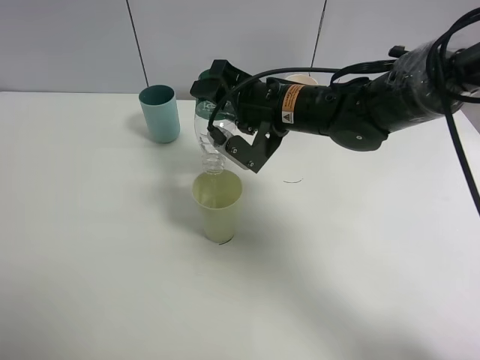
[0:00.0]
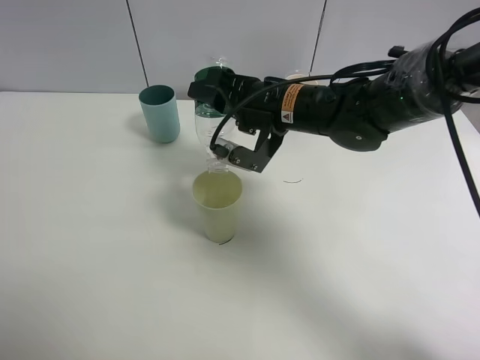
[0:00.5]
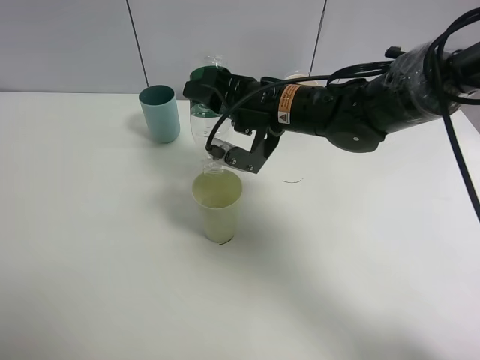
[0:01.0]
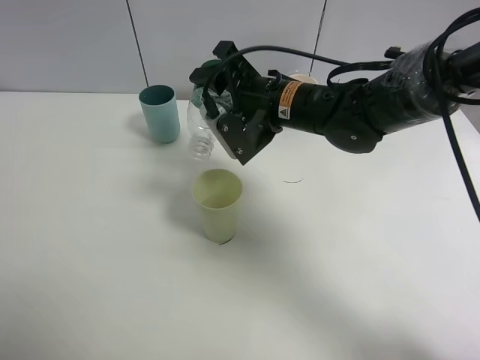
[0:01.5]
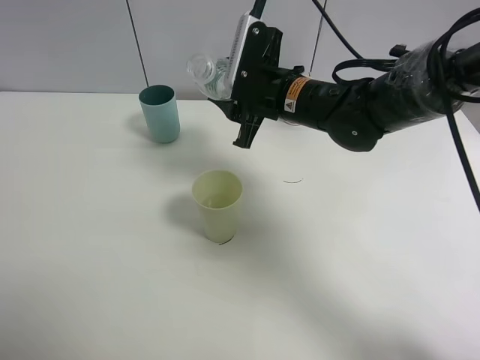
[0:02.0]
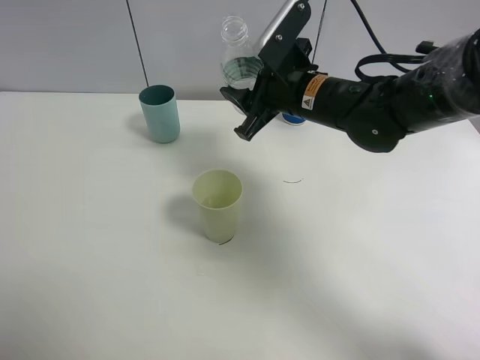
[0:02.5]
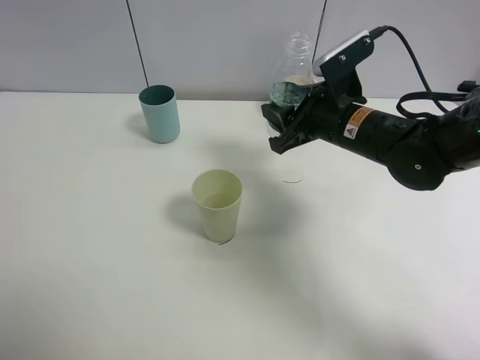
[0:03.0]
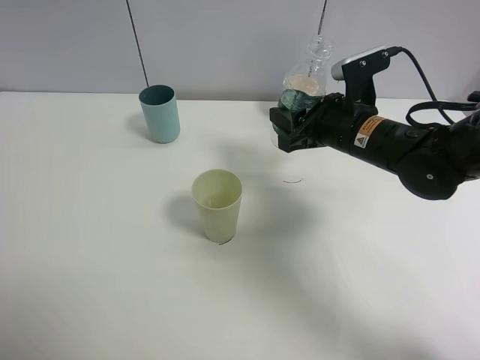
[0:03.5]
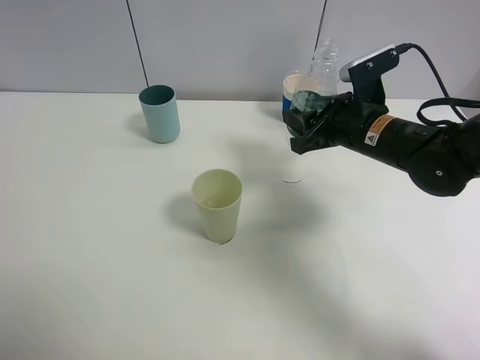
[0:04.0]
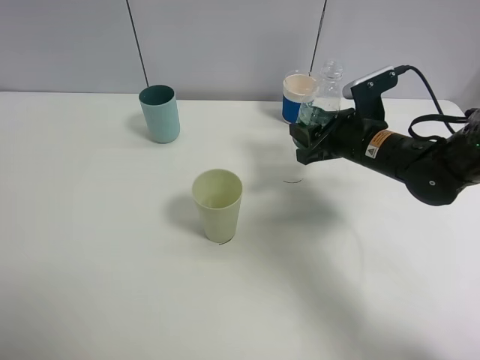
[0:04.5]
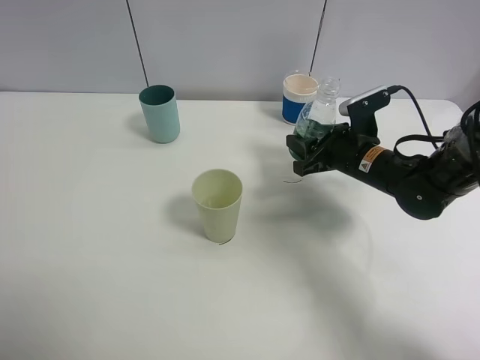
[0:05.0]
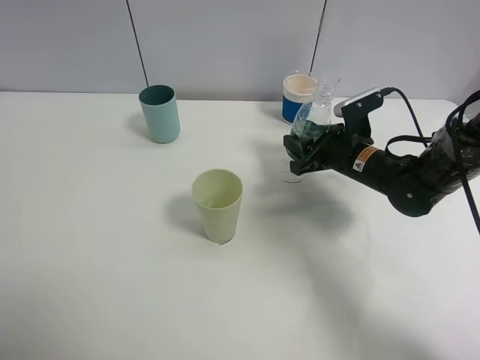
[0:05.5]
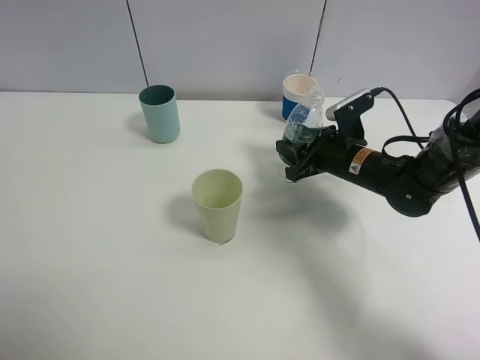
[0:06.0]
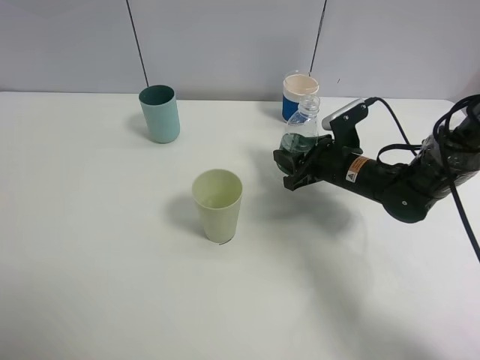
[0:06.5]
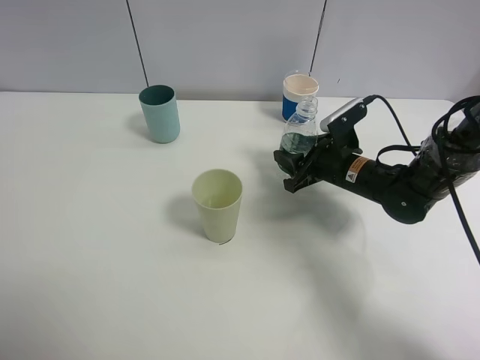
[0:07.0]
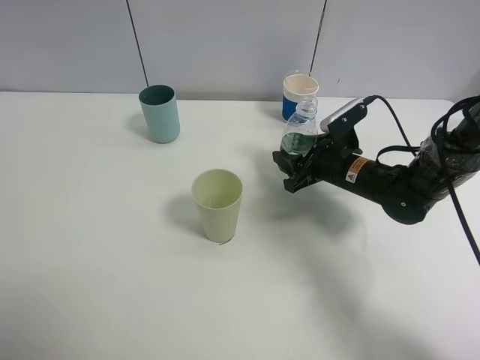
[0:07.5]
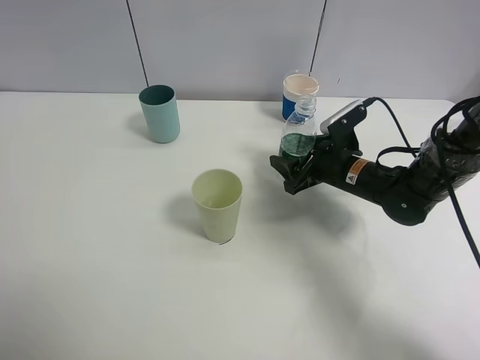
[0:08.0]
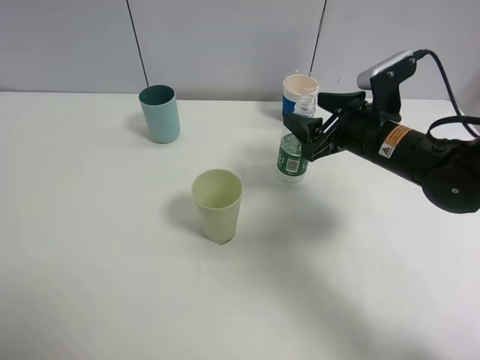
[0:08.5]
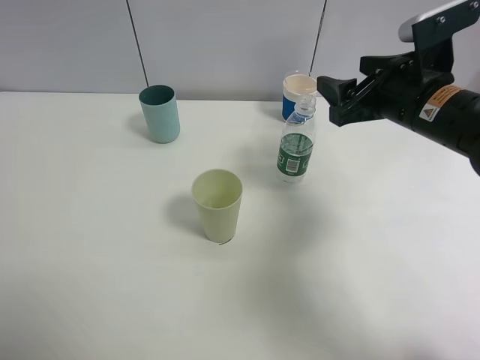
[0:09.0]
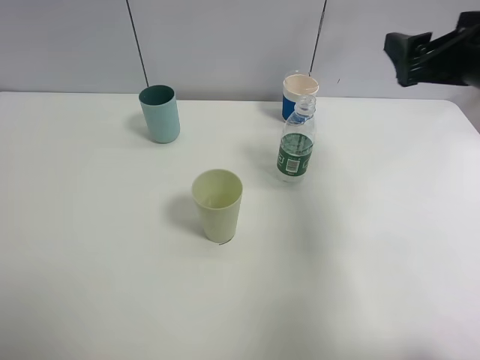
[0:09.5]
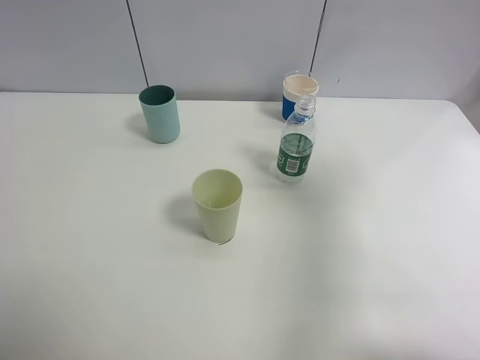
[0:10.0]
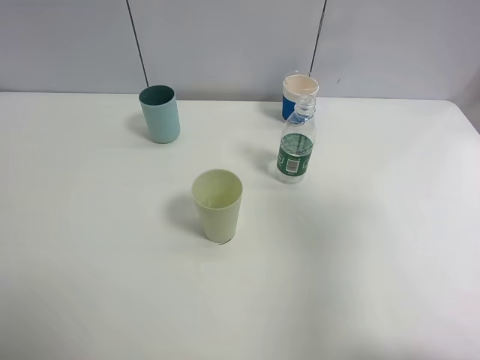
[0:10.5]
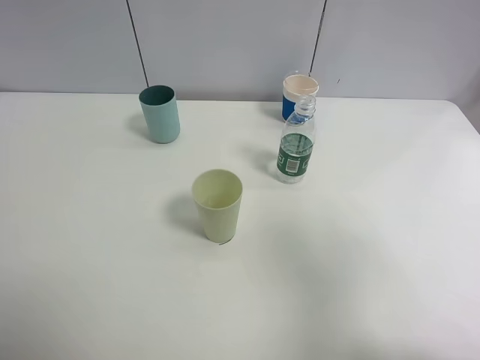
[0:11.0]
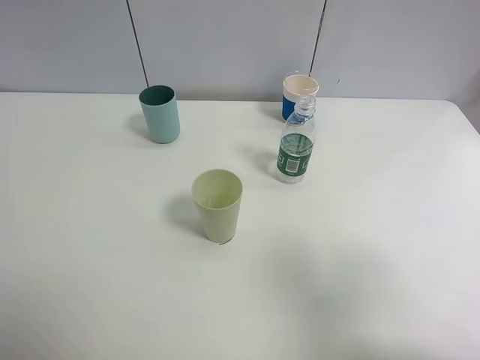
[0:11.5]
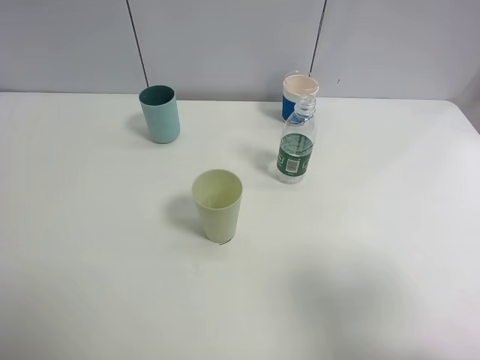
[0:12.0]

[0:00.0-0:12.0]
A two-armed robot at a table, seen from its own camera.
Task of the whole recording: use a clamp to hold the bottle of the drink, pour the beverage into a random cup, then clamp the cup containing the drink and pour the drink into another random cup.
Step, 0:01.5 to 0:08.0: Place the water bottle on the table with right gripper.
0:02.0 to 0:04.0: The right gripper is displaced to the right by some 10 cm.
0:04.0 to 0:06.0: The right gripper travels downward by about 5 cm.
0:06.0 to 0:08.0: The right gripper opens up.
0:08.0 to 0:10.0: The right gripper goes approximately 35 cm upward, backward and to the right, and opens.
0:10.0 to 0:12.0: The right gripper moves backward, roughly 15 cm.

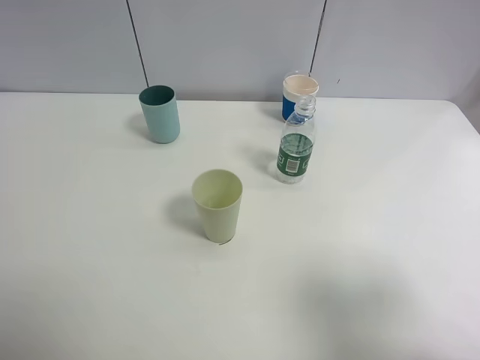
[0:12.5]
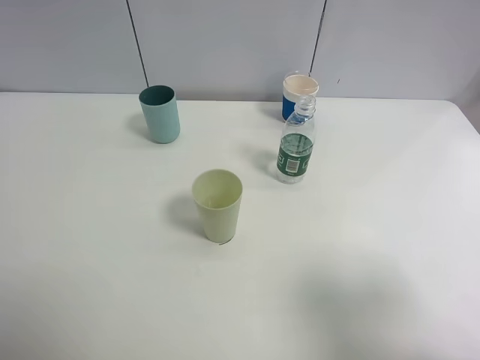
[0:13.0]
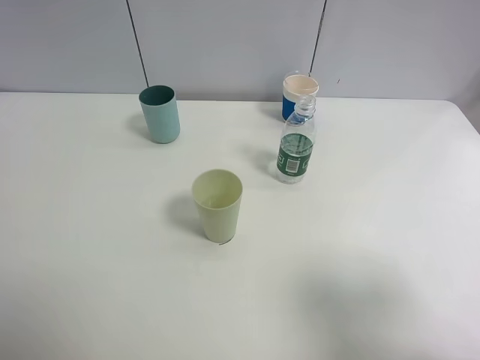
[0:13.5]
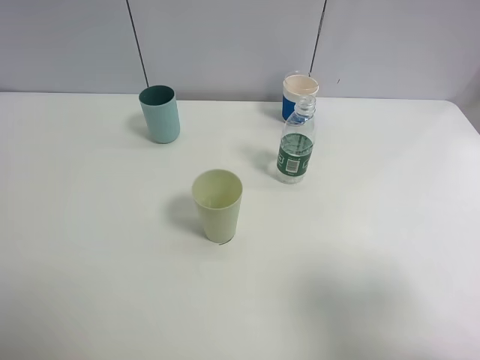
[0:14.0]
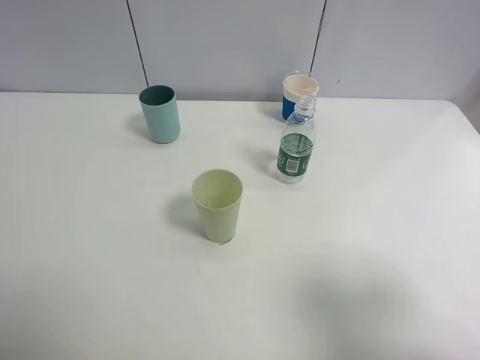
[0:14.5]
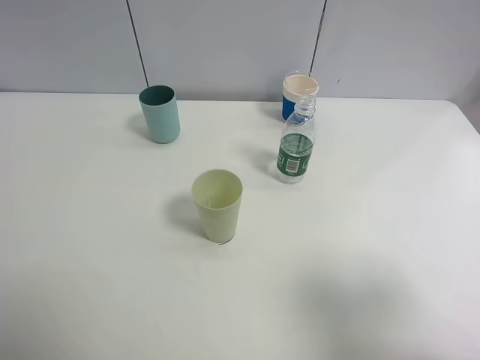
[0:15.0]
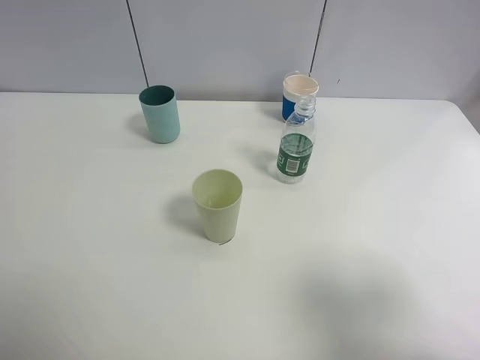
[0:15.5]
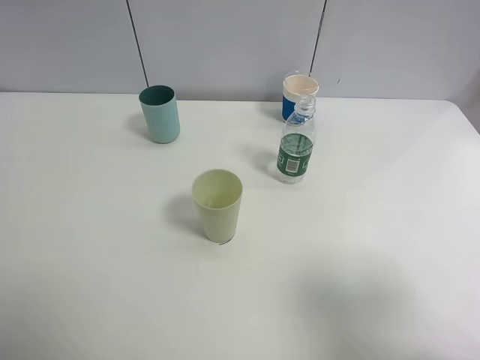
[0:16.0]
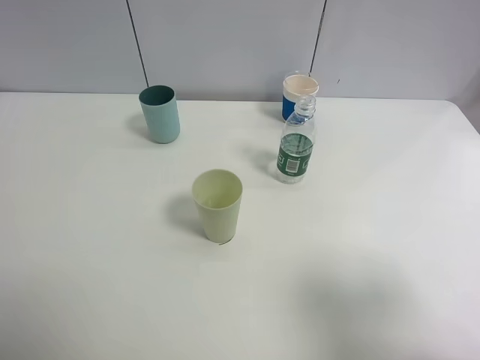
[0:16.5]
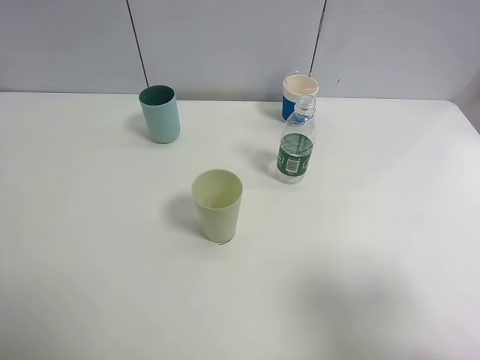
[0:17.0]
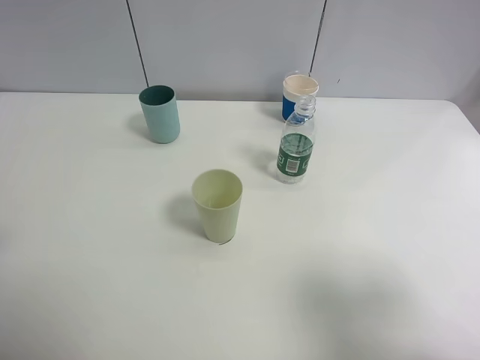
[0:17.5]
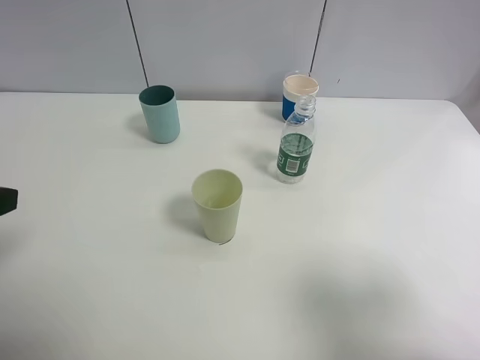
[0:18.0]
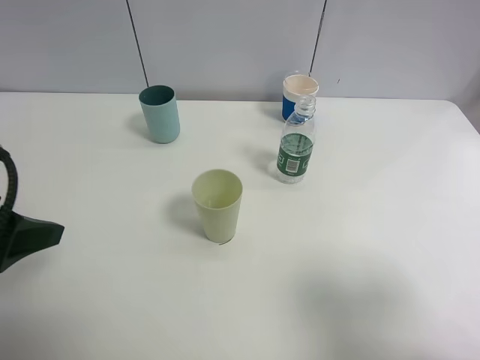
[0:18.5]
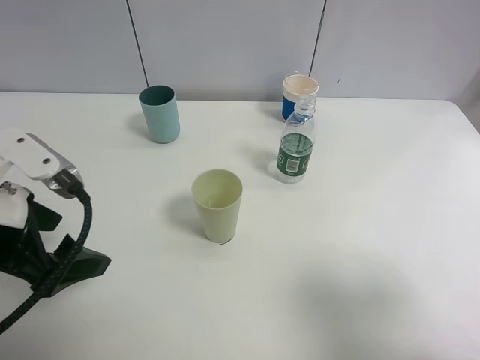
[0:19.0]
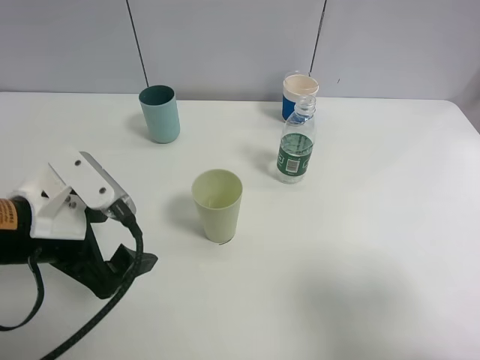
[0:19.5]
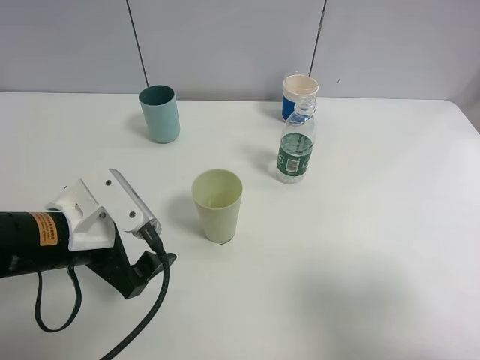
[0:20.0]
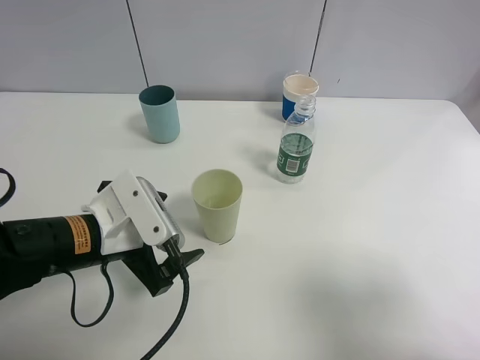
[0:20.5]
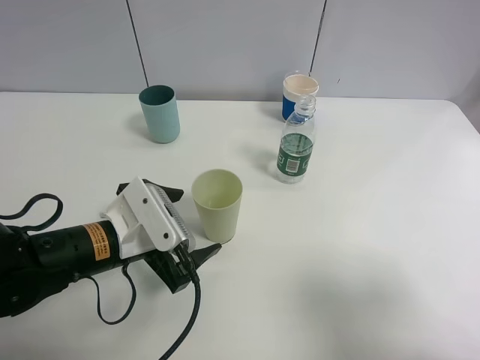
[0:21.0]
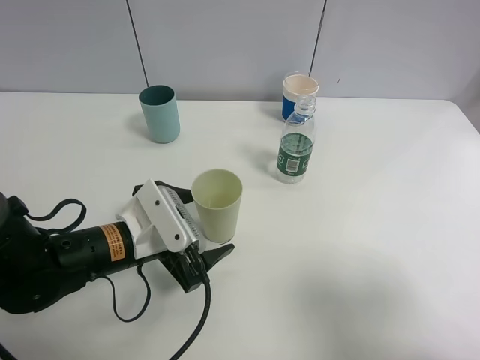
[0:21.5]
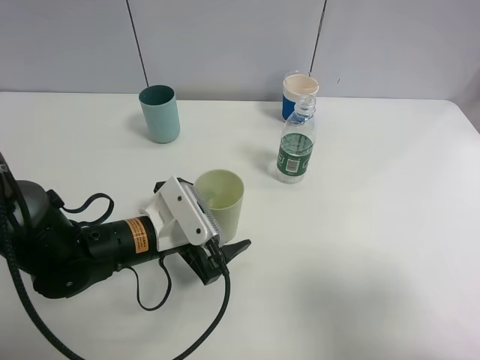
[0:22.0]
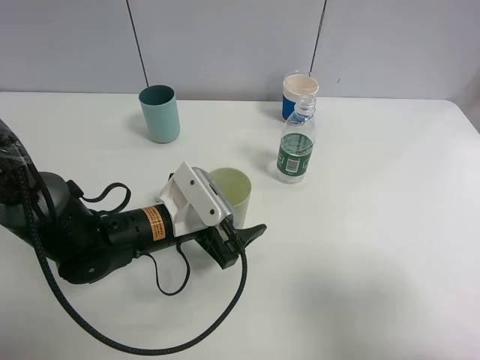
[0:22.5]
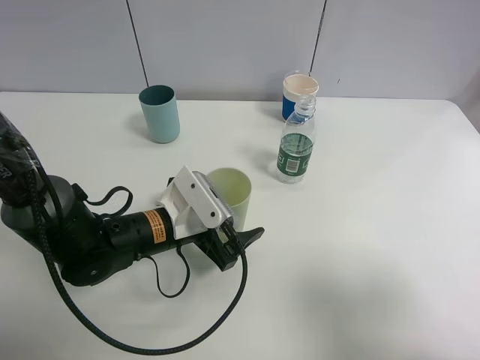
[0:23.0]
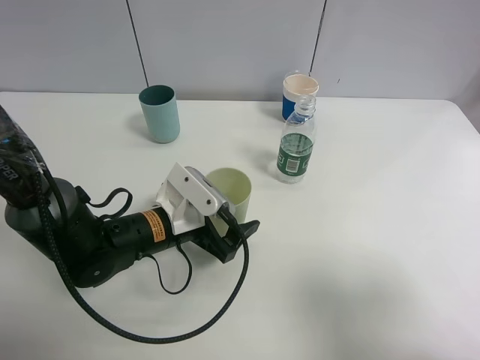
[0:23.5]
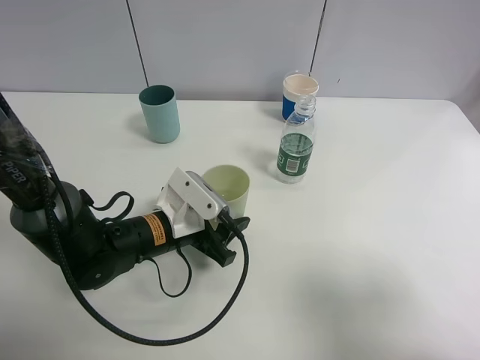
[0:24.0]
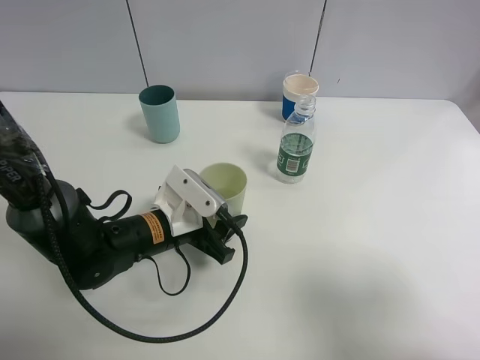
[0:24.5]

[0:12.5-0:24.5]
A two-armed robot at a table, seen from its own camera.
Task of the whole recording: use a clamp to hold the bottle of the drink, pour the beverage into a random cup, then clamp the cup containing the drink and pour the drink into another random cup.
0:12.5 to 0:16.5: Neither gripper changes place.
0:16.5 to 0:18.5: The left gripper moves forward, some 10 cm.
0:18.5 to 0:20.5: The left gripper travels to the right and downward by some 15 cm.
0:20.5 to 0:22.5: The left gripper heads to the right, covering roughly 5 cm.
0:22.5 to 0:24.5: The left gripper closes its fingers.

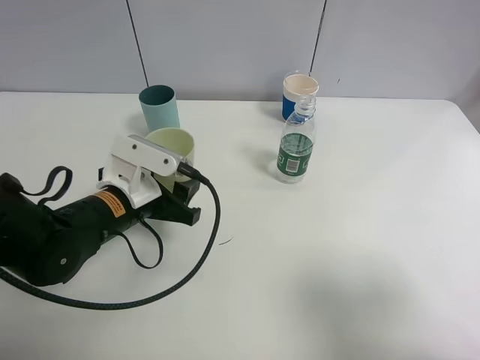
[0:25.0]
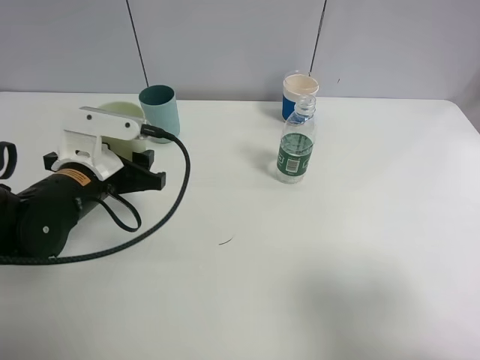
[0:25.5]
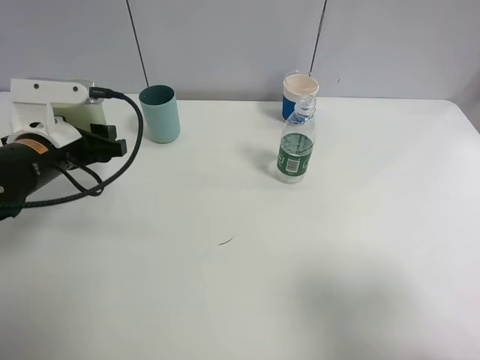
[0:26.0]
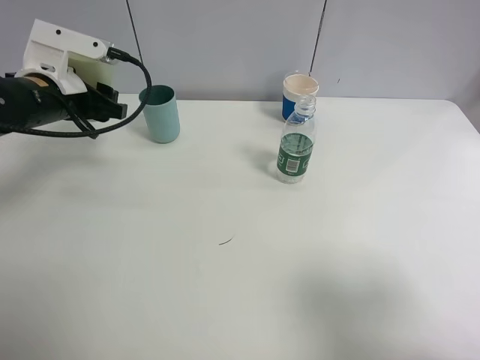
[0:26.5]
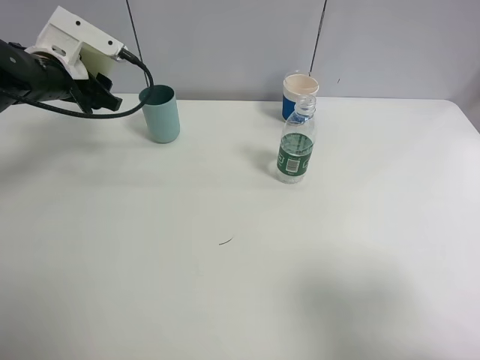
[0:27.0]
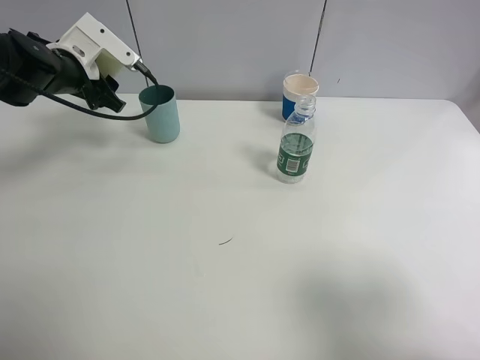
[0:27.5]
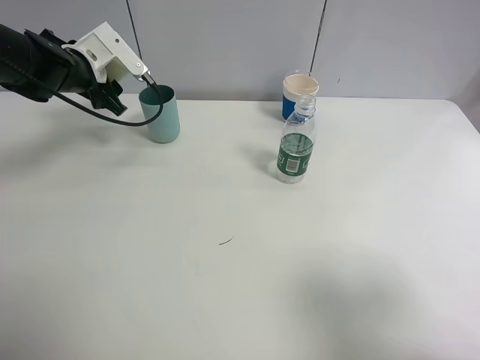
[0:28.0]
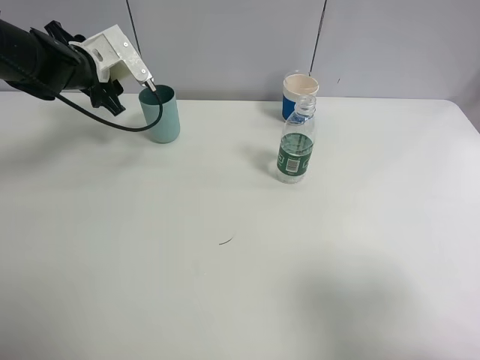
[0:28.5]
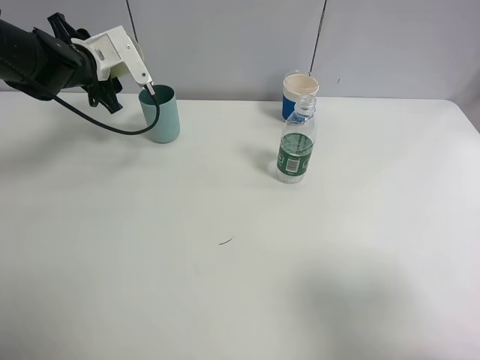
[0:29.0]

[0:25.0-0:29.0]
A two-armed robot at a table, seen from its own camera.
Task of the whole recording: use a clamp to hold the bottle of the drink, pour the beverage into a random cup, then clamp the cup containing the drink and pour the drink into another random cup.
0:25.0 to 0:27.0: The left gripper shifts about 20 cm forward, to the left and upward.
0:27.0 to 0:29.0: The left gripper is displaced forward by about 5 cm.
